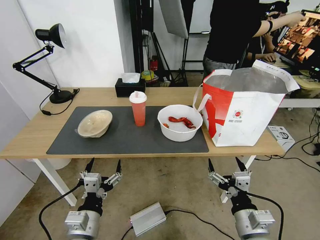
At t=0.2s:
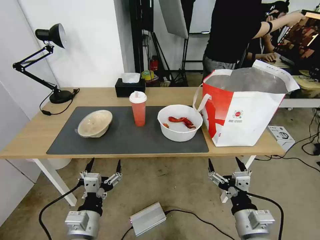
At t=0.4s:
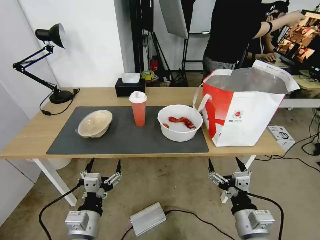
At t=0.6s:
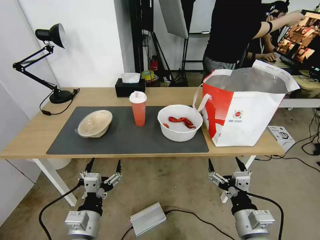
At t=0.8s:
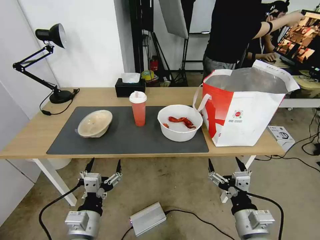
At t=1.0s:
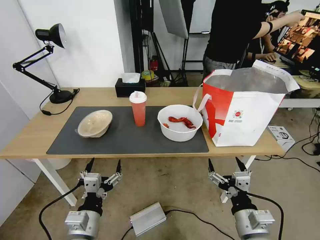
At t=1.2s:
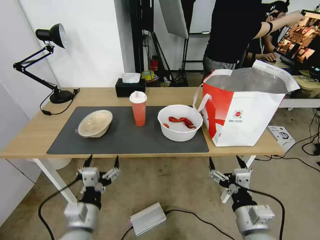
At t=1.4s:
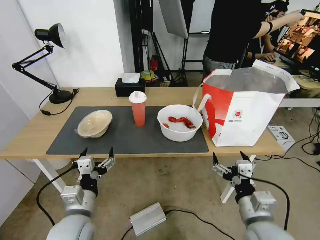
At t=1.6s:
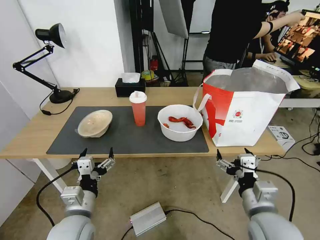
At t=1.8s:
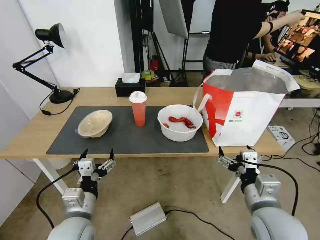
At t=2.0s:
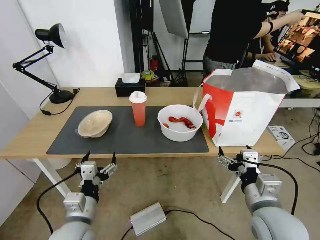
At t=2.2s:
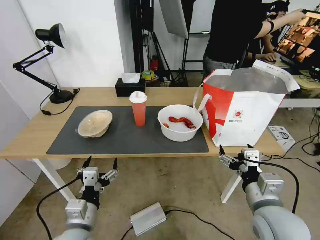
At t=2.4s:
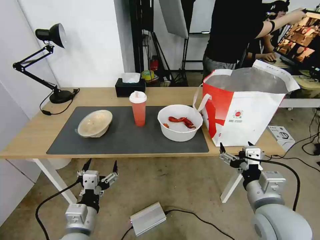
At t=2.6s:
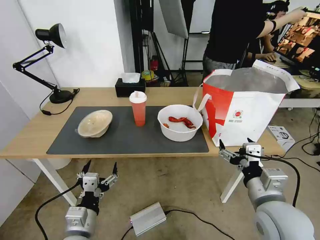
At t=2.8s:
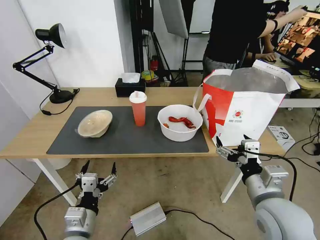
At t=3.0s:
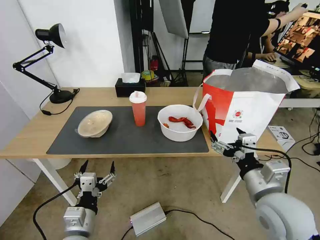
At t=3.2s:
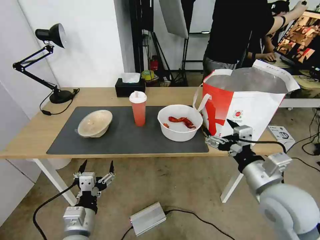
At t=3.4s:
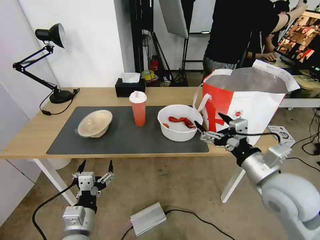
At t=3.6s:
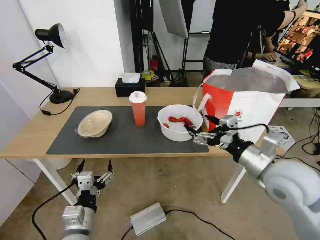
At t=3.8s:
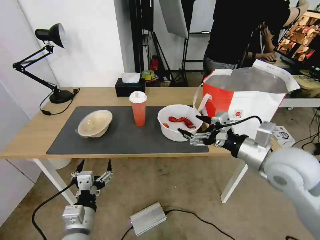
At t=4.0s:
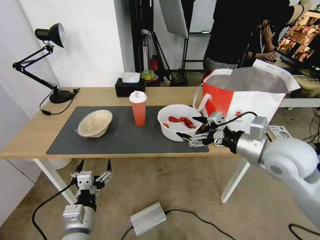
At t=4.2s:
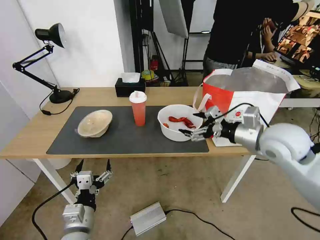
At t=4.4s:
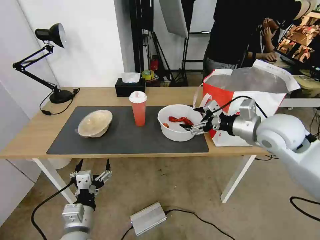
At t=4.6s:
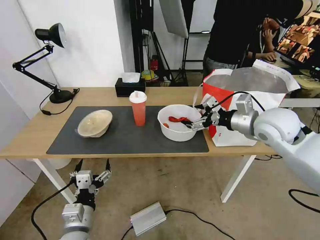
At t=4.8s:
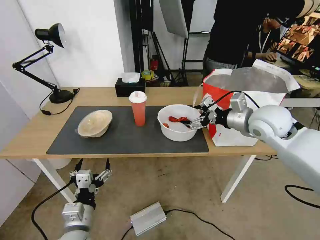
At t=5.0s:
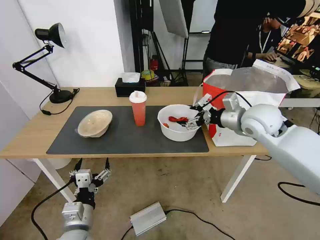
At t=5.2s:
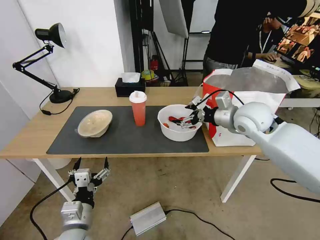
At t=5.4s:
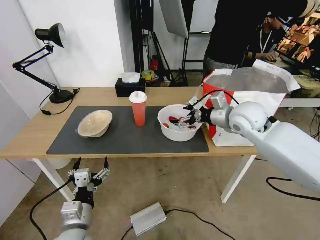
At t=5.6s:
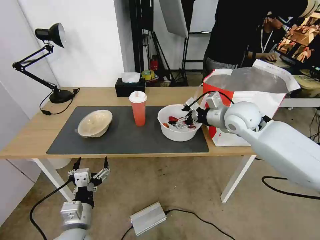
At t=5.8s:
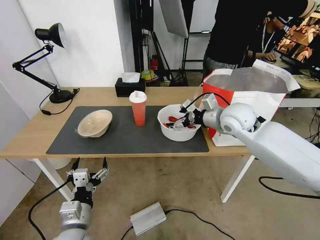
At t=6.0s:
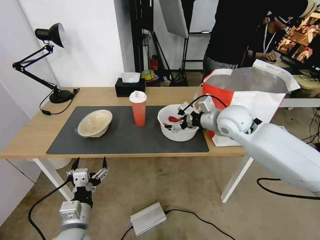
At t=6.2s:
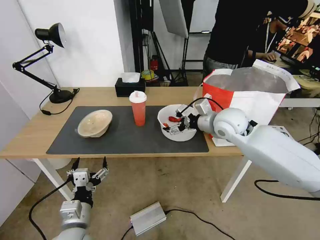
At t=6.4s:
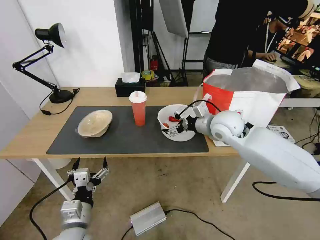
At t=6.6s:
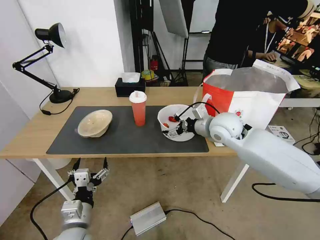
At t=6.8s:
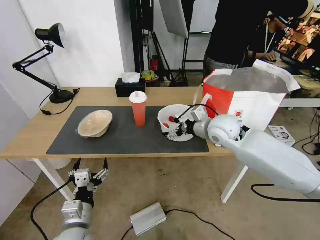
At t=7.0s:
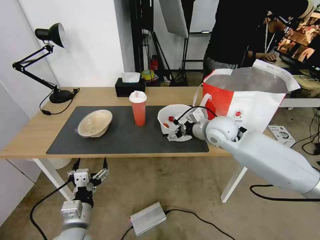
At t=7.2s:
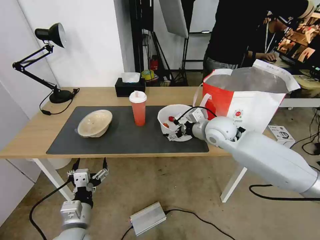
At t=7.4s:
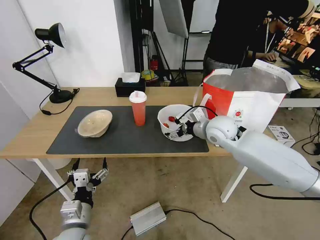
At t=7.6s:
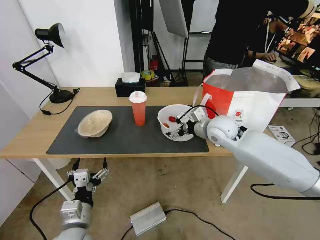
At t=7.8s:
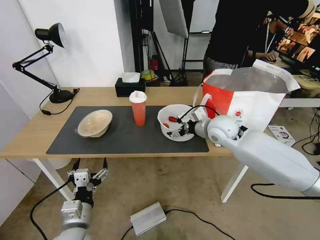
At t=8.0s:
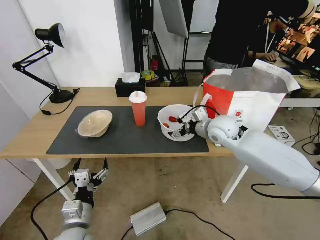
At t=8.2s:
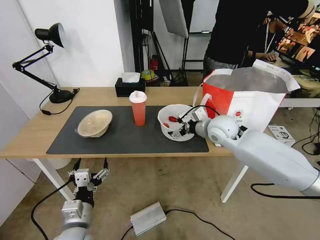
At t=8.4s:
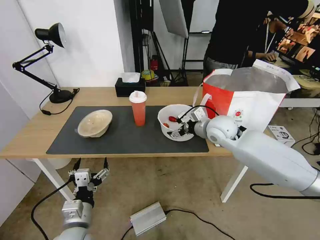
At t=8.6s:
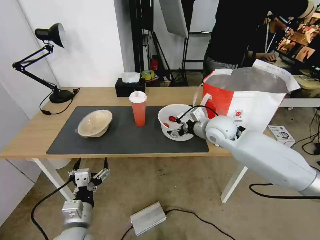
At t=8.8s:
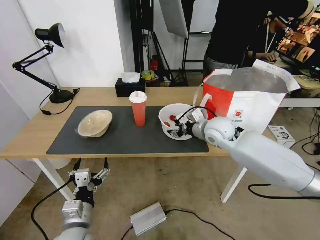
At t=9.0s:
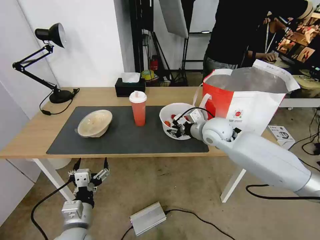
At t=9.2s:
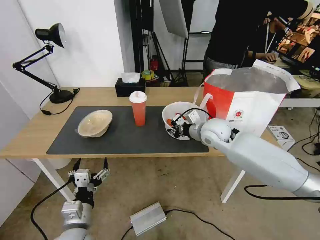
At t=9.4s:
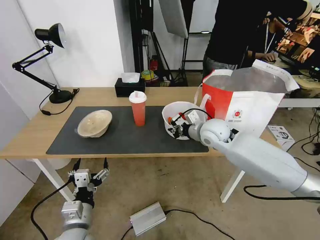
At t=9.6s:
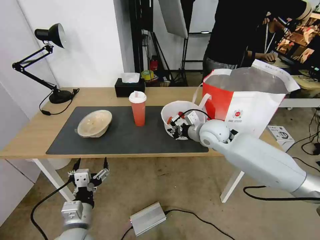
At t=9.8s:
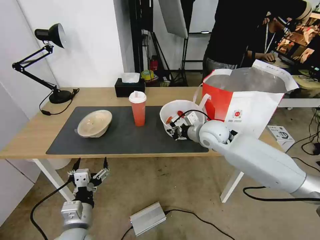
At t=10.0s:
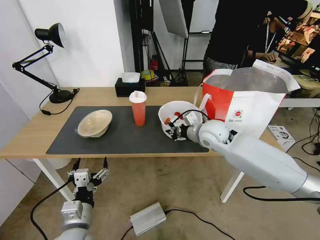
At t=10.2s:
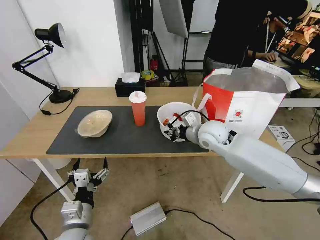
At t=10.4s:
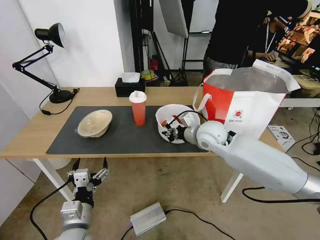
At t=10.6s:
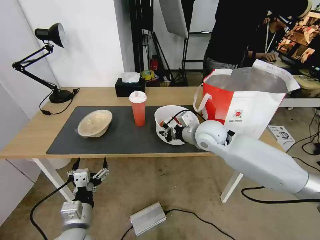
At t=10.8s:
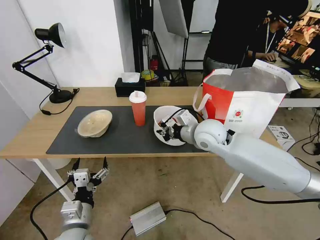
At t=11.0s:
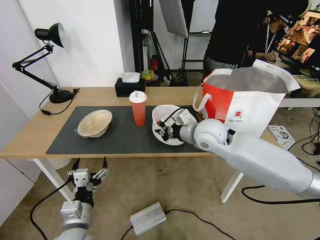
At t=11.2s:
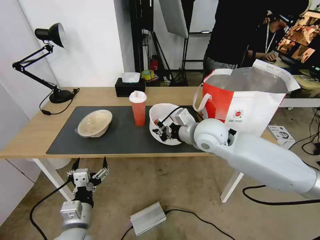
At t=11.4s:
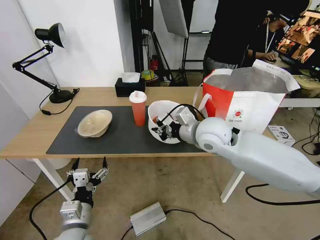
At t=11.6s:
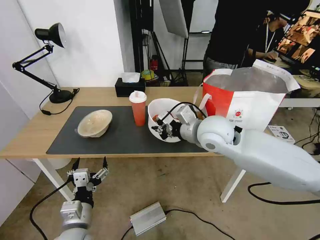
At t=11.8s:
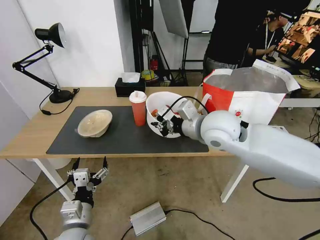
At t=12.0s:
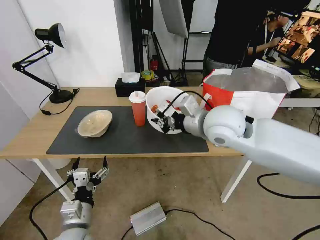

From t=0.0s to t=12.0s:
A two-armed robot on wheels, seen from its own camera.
Task of the whole recording: Pick up the trash from the table and place it into the takeout bag.
From t=1.6s to t=3.0s: The right gripper goes approximately 5 cm upward. The left gripper ends up some 5 cm from where it was.
From t=3.0s to t=4.4s: The right gripper moves forward and upward, about 20 cm.
From t=4.4s to t=6.0s: The right gripper shifts some 10 cm forward and to the left.
From t=6.0s to t=7.6s: The right gripper ends up approximately 5 cm from where it was.
From t=7.6s to t=9.0s: The right gripper closes.
From t=9.0s to t=10.4s: The right gripper closes its fingers.
From t=10.4s to t=12.0s: The right gripper moves upward and backward, approximately 15 cm.

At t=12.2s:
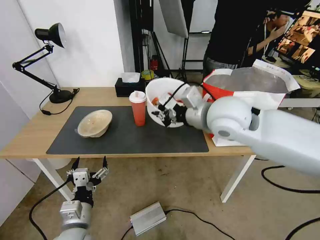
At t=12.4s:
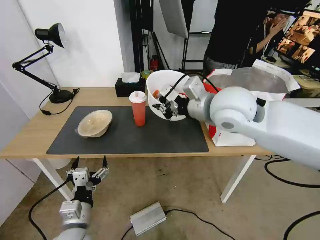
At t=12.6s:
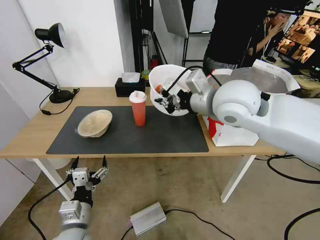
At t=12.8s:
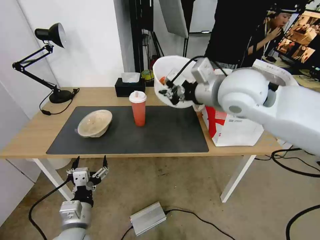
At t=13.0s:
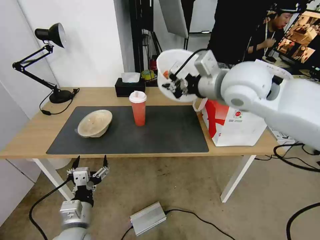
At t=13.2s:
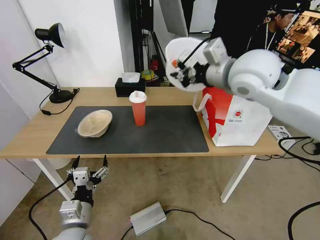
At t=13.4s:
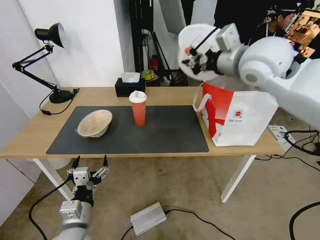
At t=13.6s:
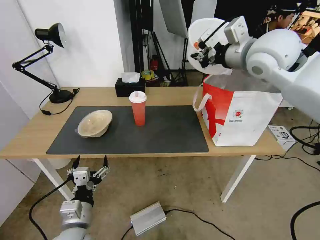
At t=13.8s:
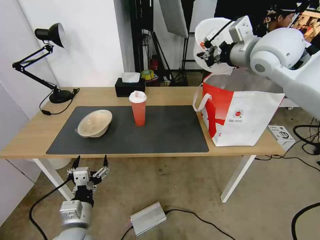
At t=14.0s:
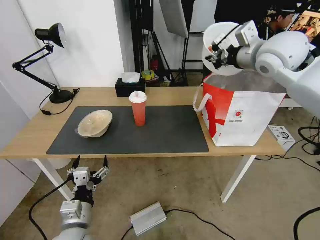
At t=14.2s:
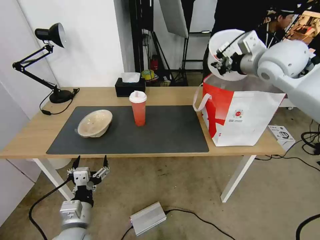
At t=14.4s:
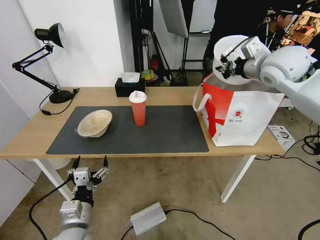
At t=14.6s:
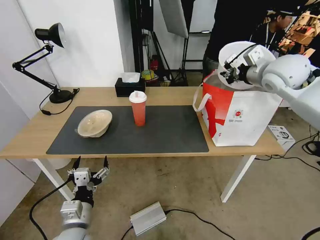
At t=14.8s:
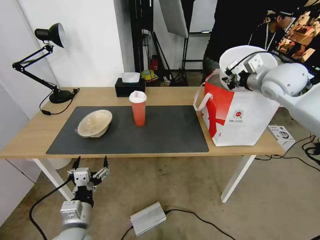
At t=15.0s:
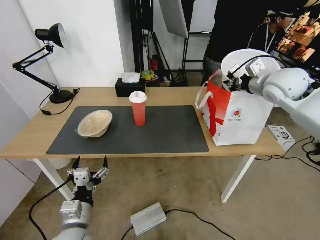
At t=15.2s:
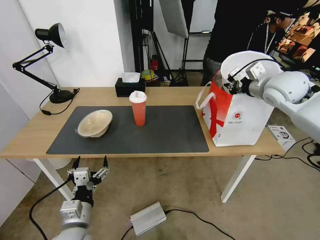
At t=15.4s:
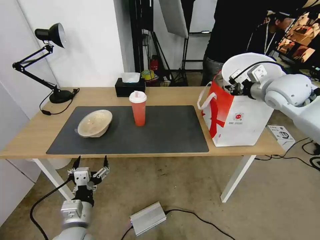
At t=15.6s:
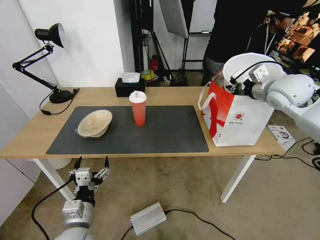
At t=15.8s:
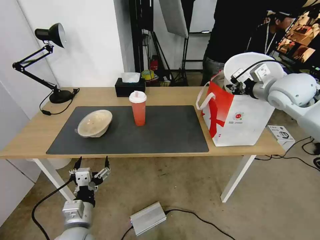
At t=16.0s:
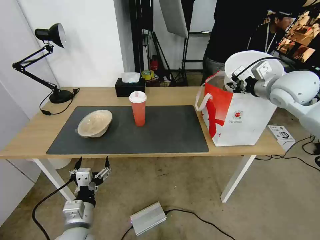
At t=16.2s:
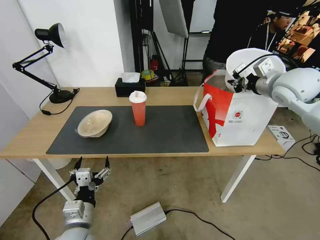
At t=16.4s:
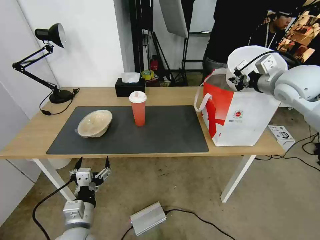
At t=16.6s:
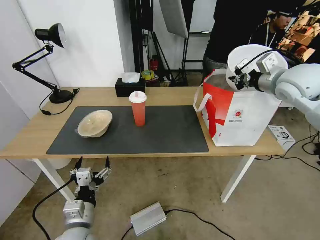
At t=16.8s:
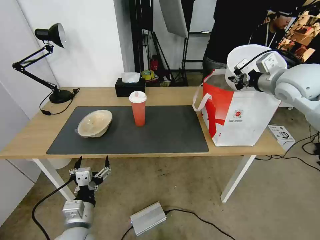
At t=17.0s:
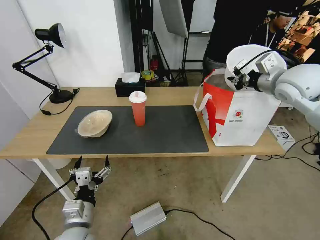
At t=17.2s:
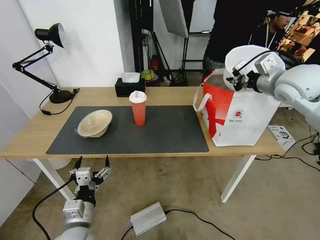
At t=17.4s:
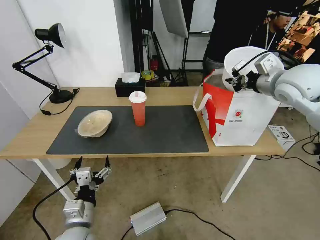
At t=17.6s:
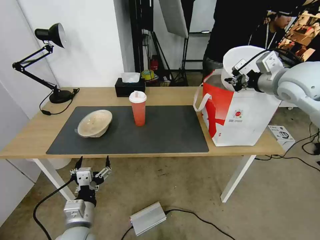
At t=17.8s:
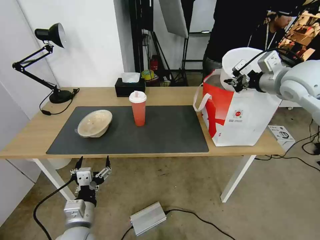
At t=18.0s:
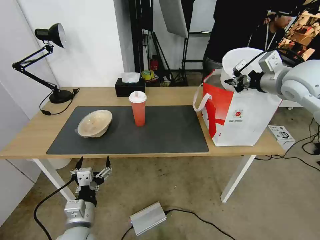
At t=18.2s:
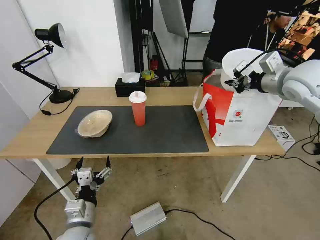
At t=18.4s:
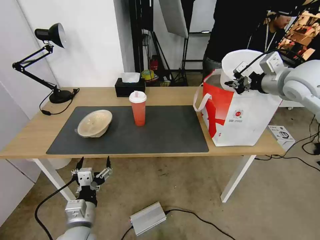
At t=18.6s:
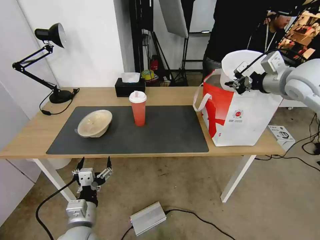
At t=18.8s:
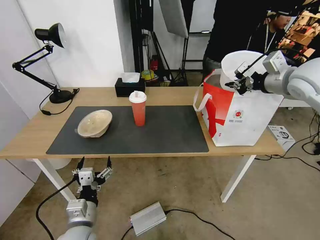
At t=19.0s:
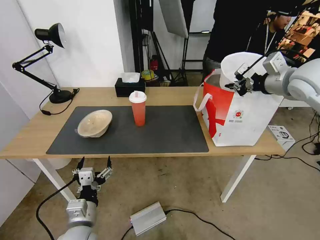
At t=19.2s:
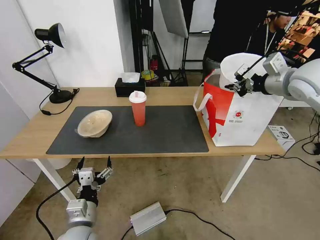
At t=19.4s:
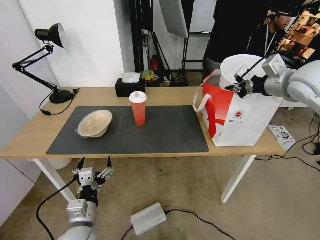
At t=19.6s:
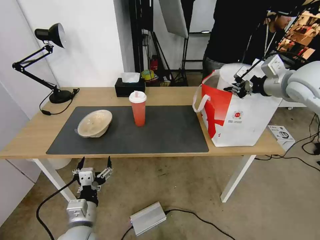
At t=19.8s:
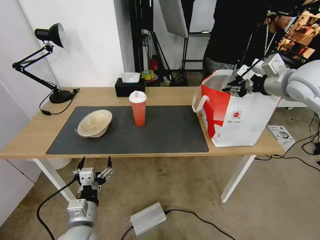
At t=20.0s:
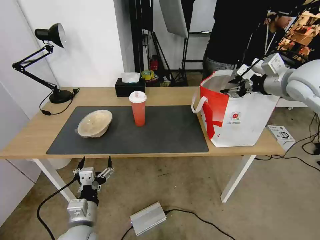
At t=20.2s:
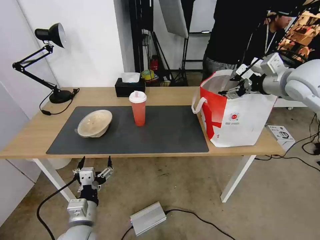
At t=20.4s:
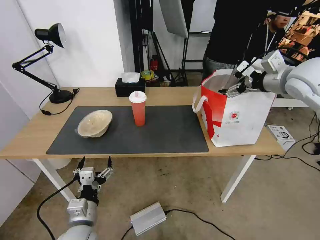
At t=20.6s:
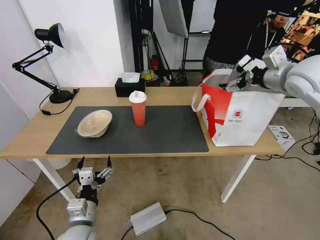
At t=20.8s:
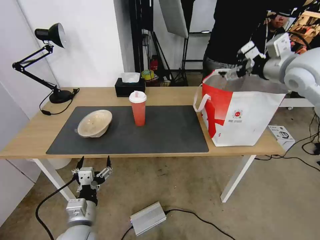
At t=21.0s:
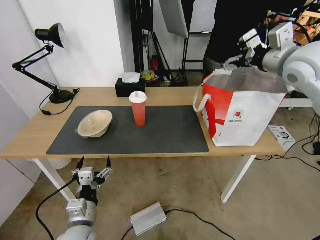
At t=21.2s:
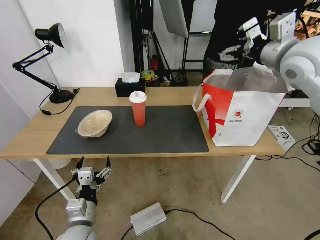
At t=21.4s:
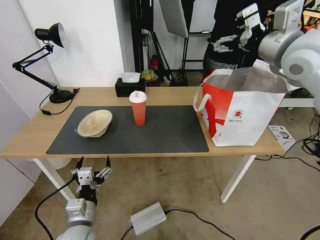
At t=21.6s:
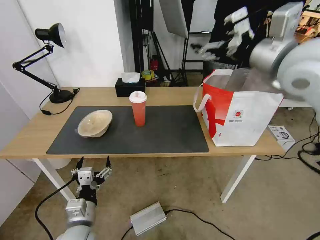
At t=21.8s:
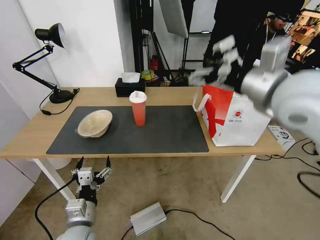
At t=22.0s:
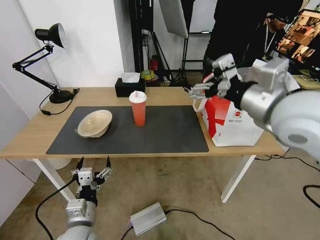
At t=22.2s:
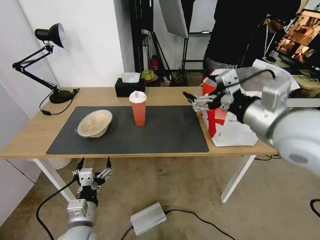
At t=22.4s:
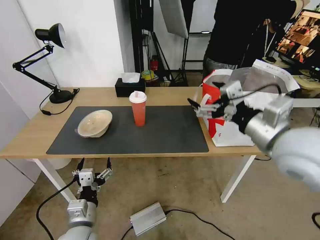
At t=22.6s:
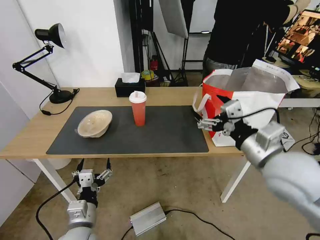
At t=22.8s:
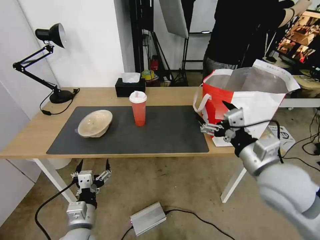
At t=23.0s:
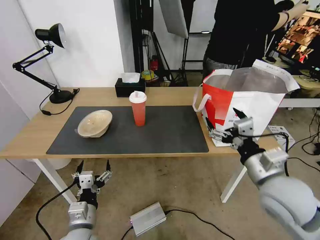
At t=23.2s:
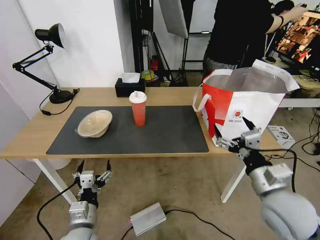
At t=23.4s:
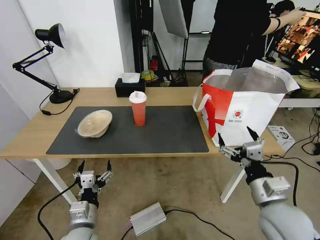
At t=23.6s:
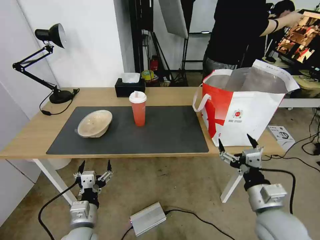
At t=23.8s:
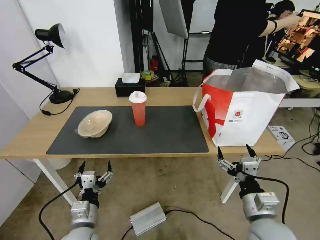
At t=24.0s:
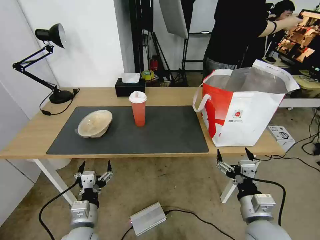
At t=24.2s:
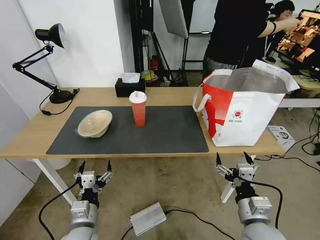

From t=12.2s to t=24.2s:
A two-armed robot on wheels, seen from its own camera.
Task of the whole recording: Pick up the trash from the table and place it into the takeout bag.
From t=12.2s to t=13.8s: The right gripper is displaced to the right, upward and forward by some 20 cm.
From t=13.8s to t=15.2s: The right gripper moves downward and to the right, approximately 15 cm.
From t=15.2s to t=16.6s: The grippers make only small movements.
From t=16.6s to t=18.2s: The grippers stay close to where they were, moving slightly.
From t=18.2s to t=19.8s: The right gripper opens.
From t=19.8s to t=21.2s: The right gripper shifts roughly 5 cm upward and to the left, and opens its fingers.
From t=21.2s to t=22.6s: The right gripper goes some 25 cm backward and downward.
From t=22.6s to t=24.2s: The right gripper is displaced downward and backward by about 20 cm.
